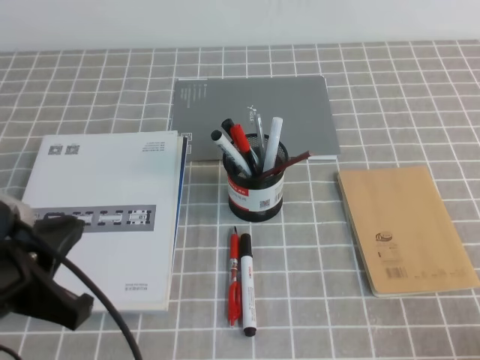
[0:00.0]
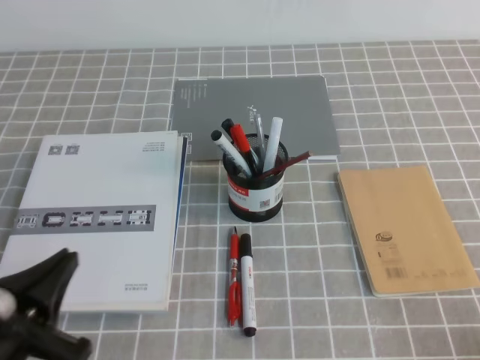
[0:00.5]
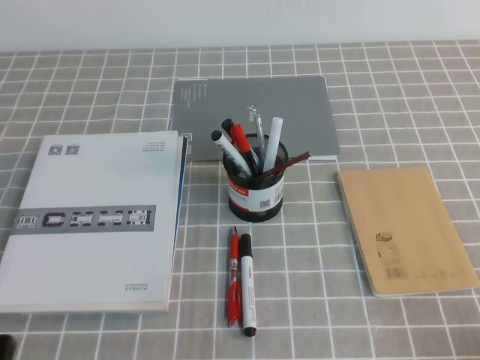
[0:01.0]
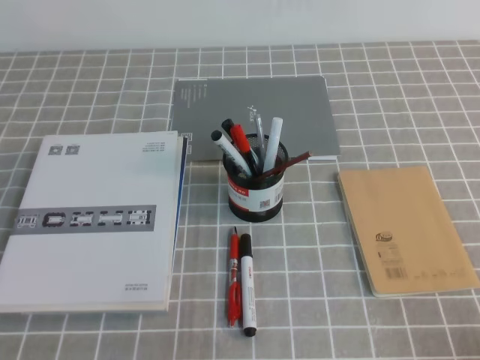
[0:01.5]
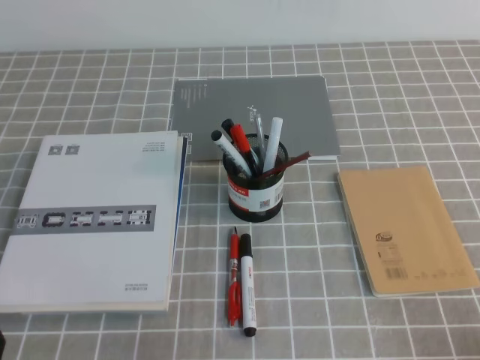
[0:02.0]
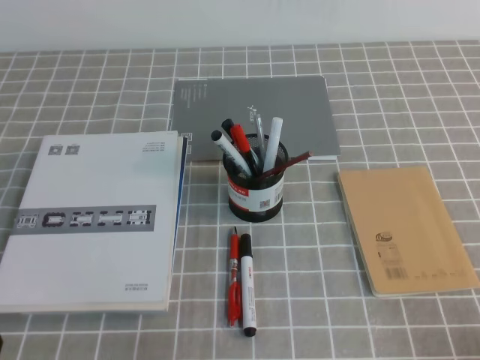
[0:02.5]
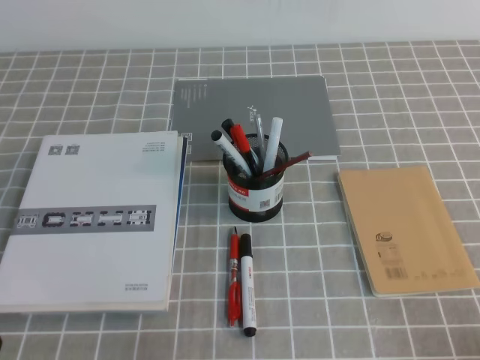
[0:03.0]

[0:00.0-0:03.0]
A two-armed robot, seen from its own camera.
Step, 0:00.0 to 0:03.0: Pick up the pen from the pen holder.
0:00.0 to 0:01.5: The left gripper is displaced downward, to the left and backward by about 15 cm.
